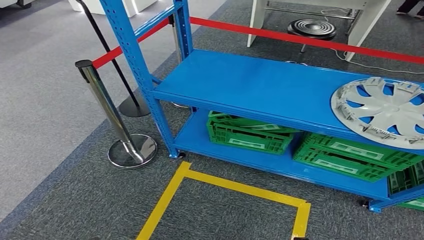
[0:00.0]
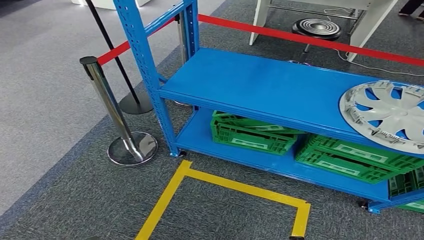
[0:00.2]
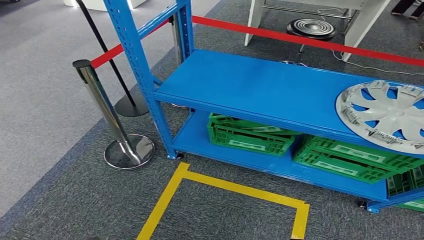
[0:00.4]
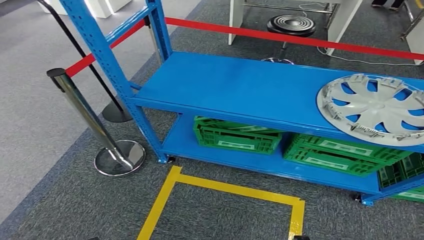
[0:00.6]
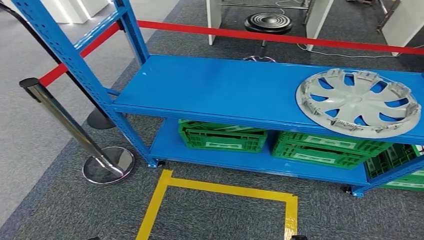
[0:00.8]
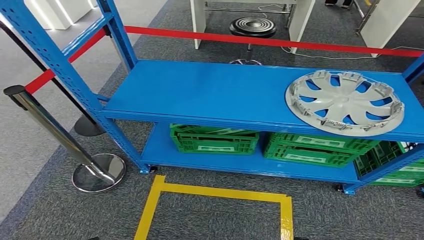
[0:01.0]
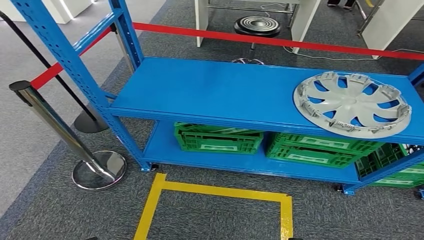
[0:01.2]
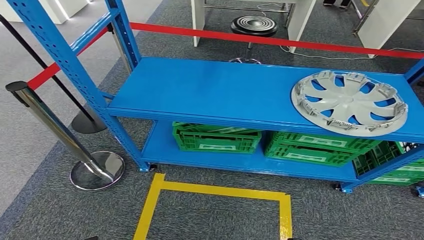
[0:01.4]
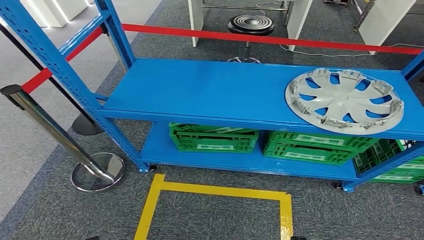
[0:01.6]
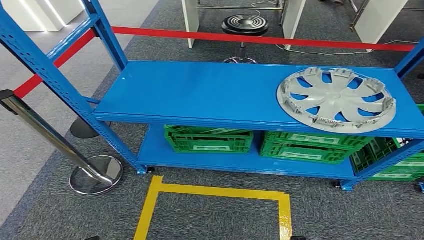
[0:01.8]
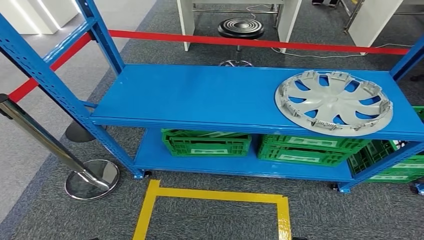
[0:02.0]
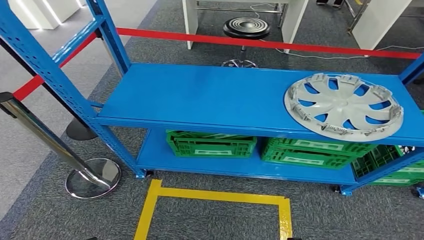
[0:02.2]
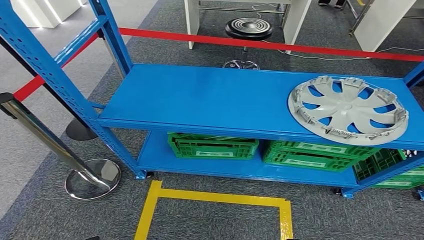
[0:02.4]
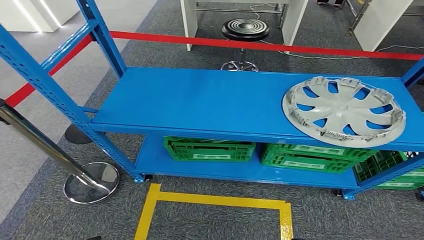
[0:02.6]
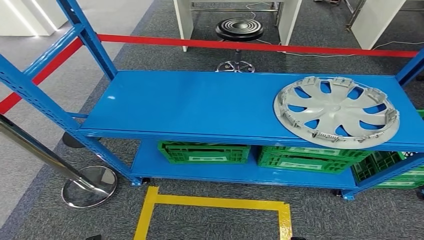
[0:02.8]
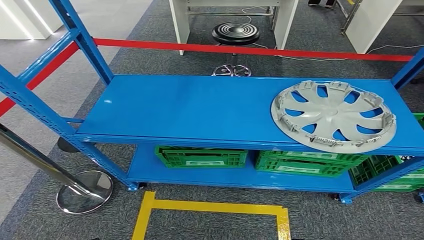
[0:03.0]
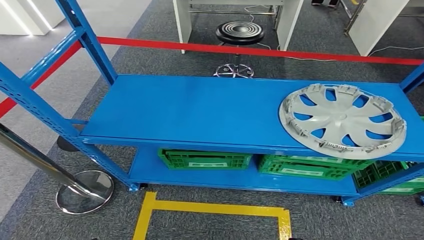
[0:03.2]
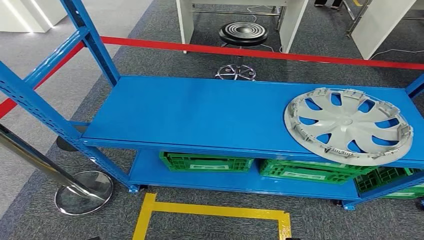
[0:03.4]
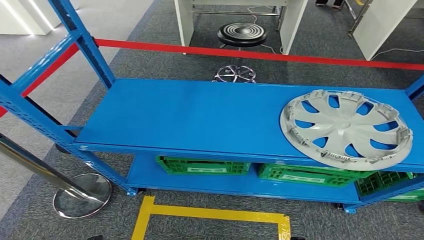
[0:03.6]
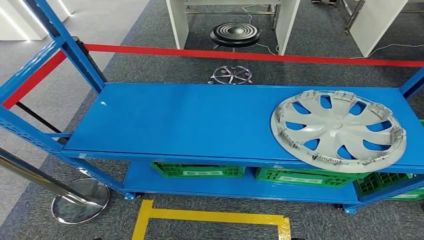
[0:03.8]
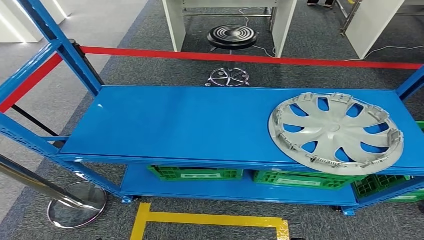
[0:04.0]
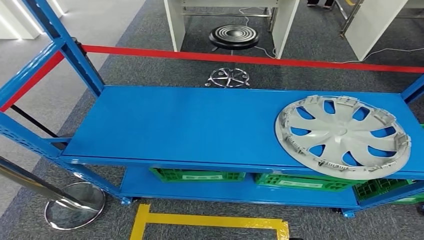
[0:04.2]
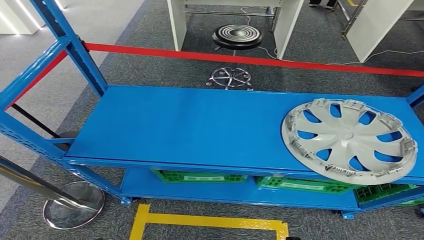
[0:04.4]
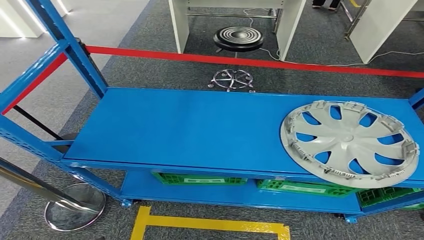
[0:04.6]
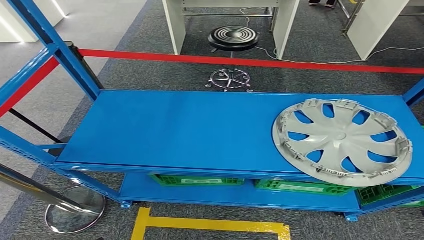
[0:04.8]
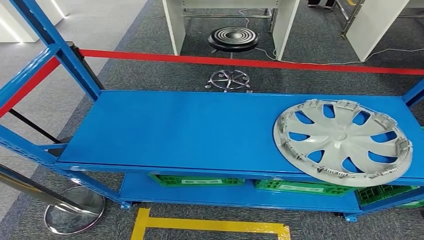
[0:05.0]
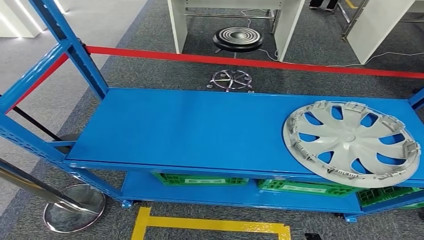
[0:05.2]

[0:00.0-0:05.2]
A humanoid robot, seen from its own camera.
Step, 0:00.0 to 0:05.2: Return to the initial position at the workbench.
